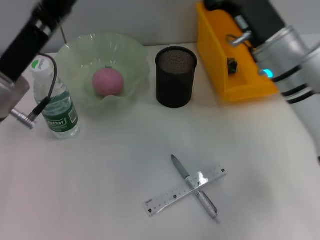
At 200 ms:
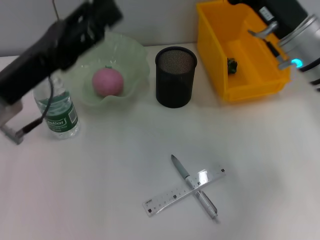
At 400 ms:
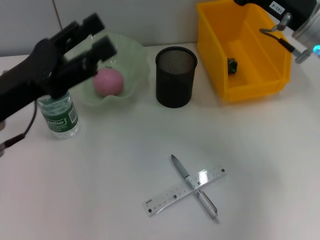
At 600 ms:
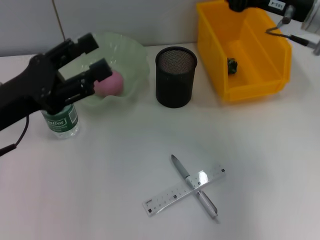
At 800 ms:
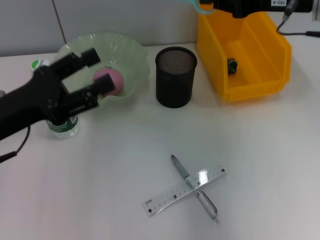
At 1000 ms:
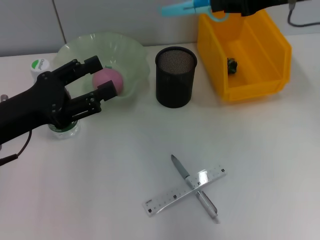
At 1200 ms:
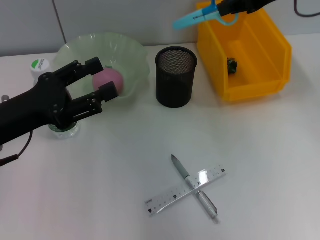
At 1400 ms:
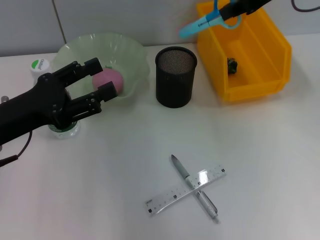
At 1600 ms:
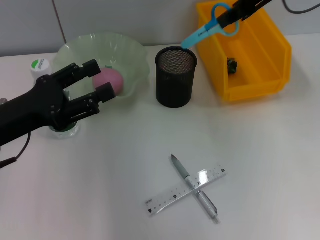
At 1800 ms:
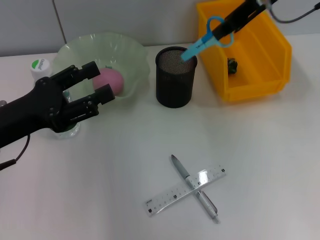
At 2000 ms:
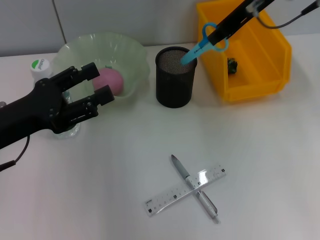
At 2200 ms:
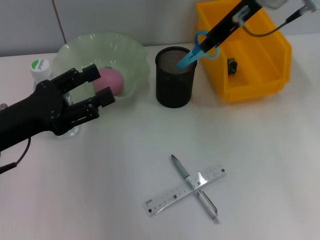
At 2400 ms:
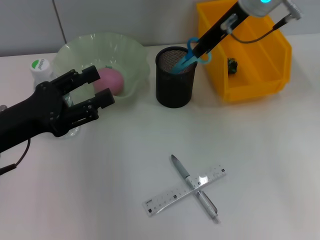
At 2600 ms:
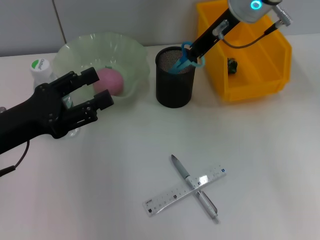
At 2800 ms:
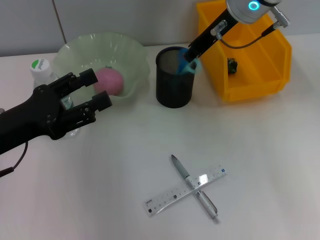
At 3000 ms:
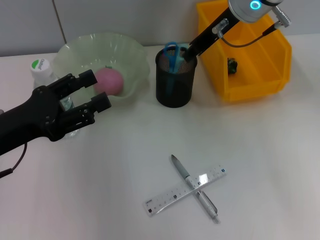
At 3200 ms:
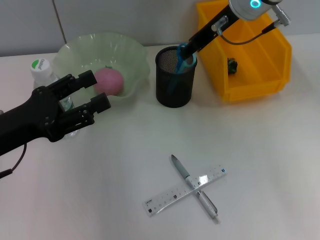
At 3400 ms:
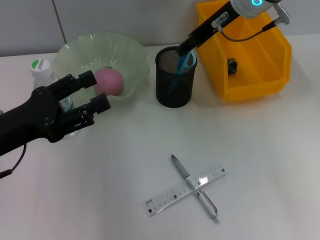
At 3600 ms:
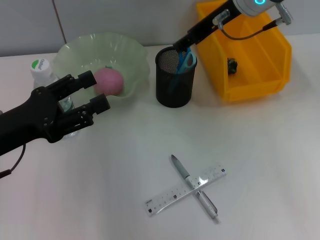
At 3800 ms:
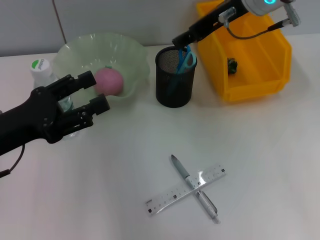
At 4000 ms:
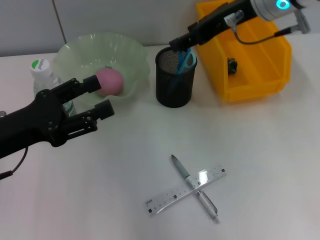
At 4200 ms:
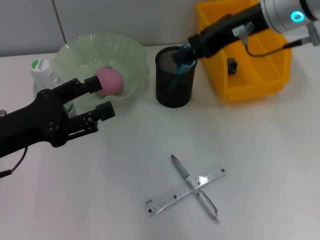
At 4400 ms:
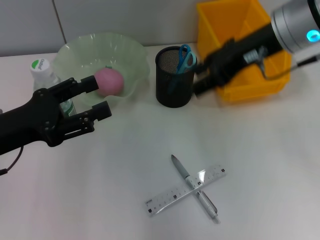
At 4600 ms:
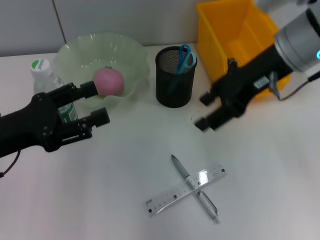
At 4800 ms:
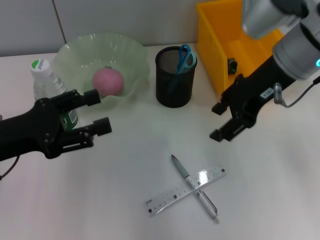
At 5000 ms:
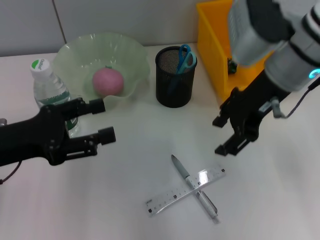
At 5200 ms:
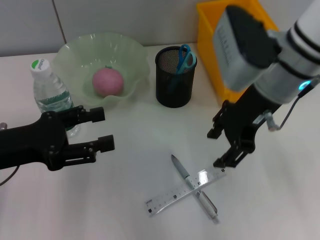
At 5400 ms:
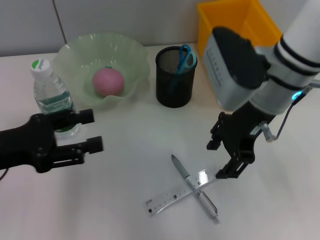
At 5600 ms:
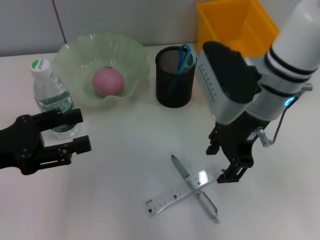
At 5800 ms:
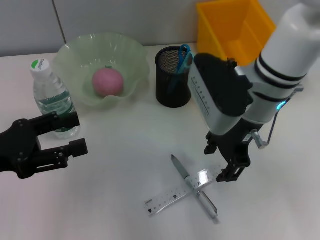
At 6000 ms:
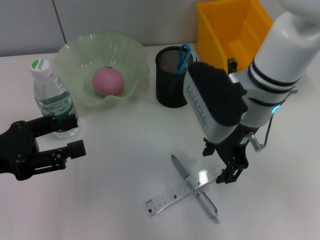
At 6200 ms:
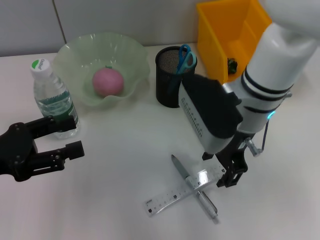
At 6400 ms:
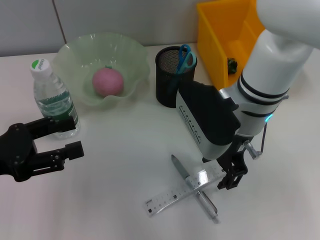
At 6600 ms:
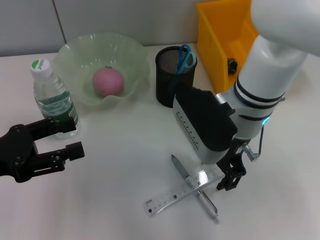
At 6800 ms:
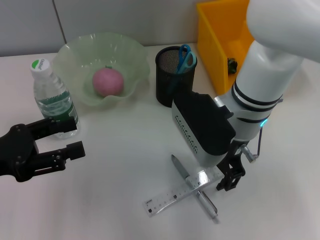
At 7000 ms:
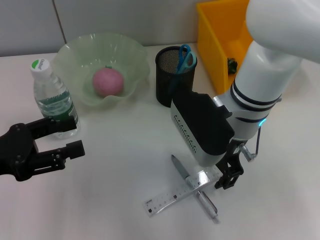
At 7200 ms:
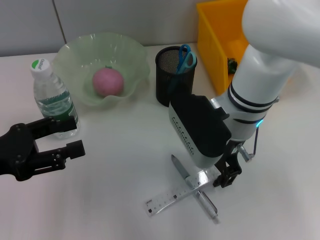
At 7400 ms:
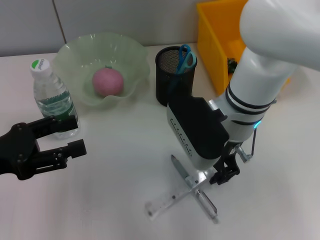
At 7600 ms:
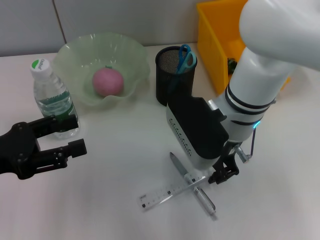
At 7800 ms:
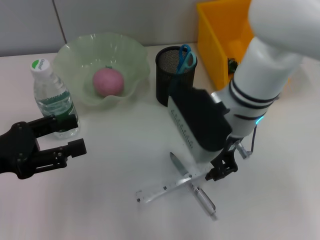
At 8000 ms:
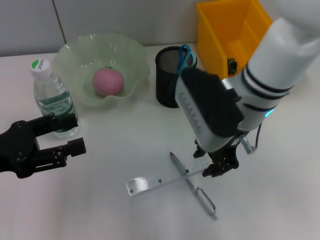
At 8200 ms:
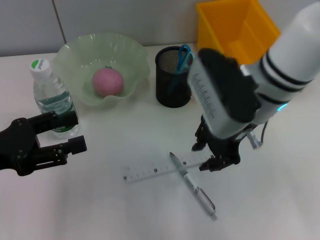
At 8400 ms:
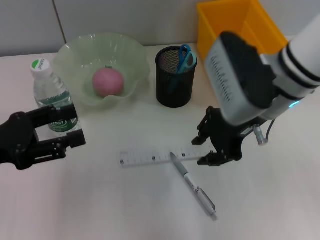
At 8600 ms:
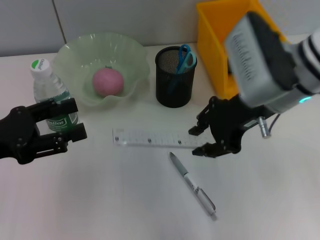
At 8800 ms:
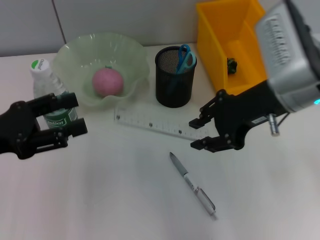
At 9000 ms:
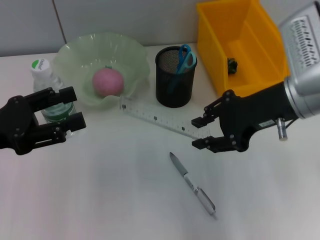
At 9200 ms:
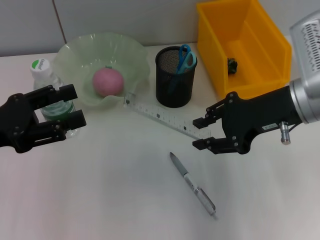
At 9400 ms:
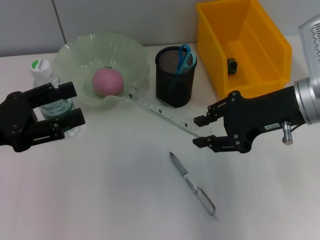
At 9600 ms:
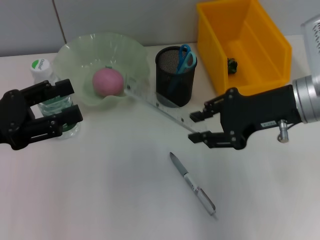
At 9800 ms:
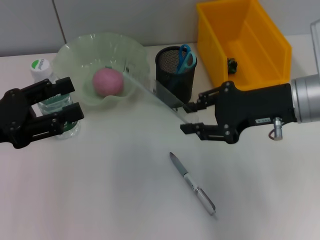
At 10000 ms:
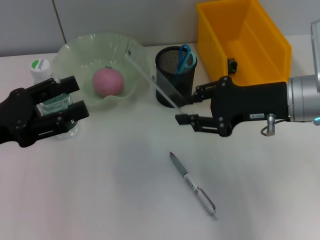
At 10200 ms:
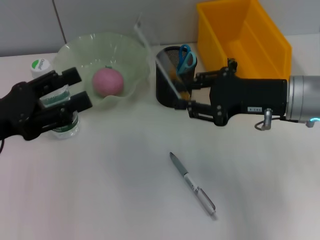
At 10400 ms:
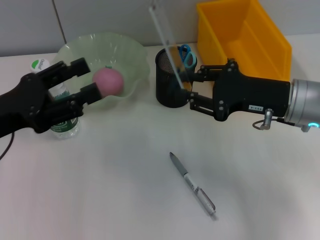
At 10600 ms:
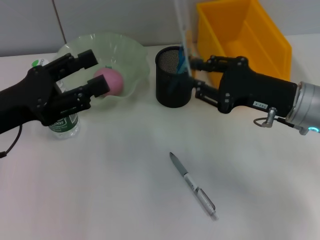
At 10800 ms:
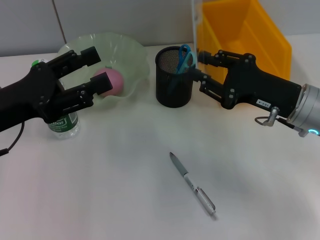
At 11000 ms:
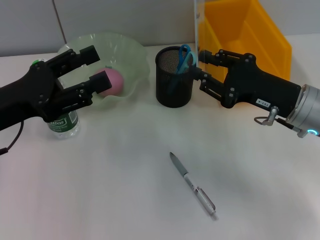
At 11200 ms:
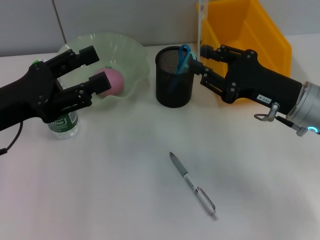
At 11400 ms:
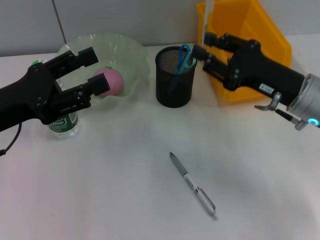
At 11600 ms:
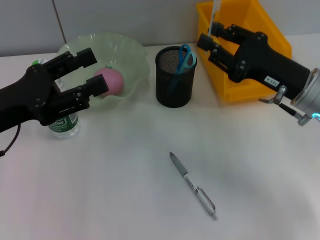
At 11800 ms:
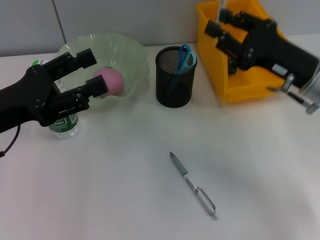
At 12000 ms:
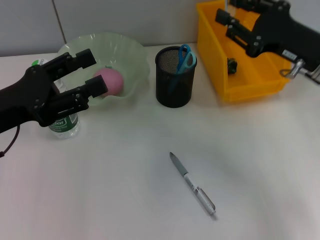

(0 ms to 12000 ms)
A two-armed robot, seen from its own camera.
Step, 0 ms - 3000 ms: Place the blue scissors into the pen holder with the right hand.
Step, 3400 ms - 7200 ms: Grab the ruler with the right hand.
0 ms - 1600 ms: The right gripper shifts roughly 15 cm upward. The left gripper moves about 5 cm.
1600 ms - 3000 ms: The right gripper shifts some 10 cm downward and to the left.
3000 ms - 4400 ms: The right gripper heads backward, covering about 10 cm, and opens up.
4400 ms - 6000 ms: The right gripper is displaced downward and to the left by roughly 10 cm.
6000 ms - 7600 ms: The grippers stay close to where they were, moving slightly.
7600 ms - 9000 ms: The right gripper travels to the right by approximately 10 cm.
9000 ms - 10400 ms: The right gripper heads downward, covering some 5 cm.

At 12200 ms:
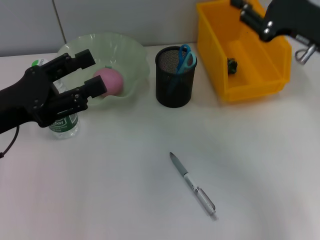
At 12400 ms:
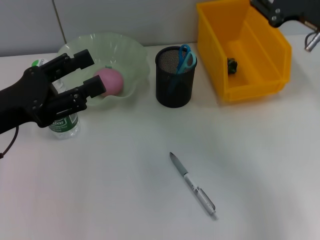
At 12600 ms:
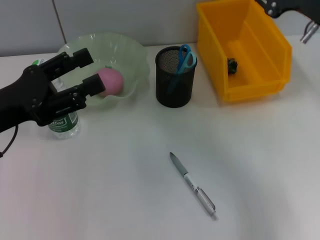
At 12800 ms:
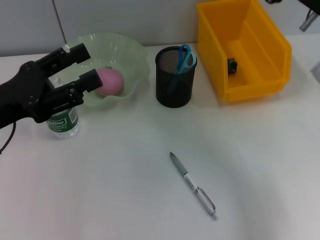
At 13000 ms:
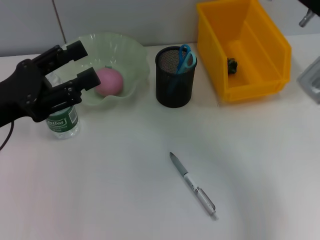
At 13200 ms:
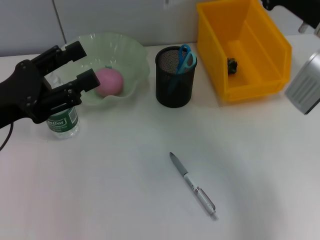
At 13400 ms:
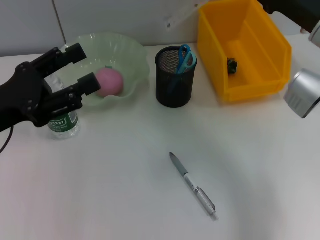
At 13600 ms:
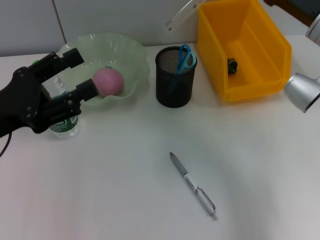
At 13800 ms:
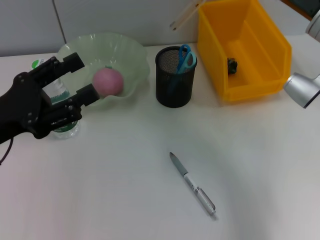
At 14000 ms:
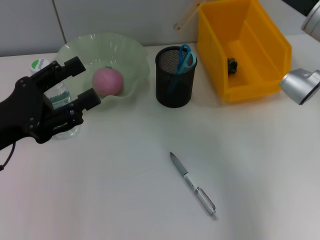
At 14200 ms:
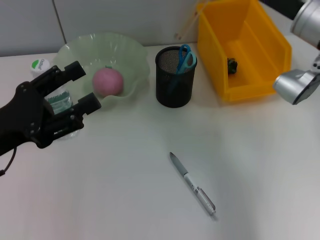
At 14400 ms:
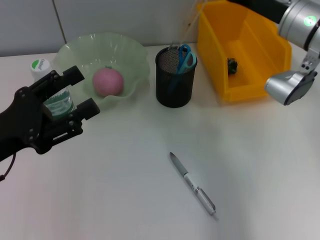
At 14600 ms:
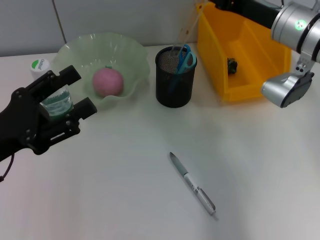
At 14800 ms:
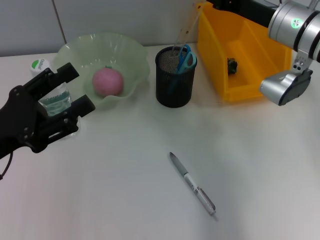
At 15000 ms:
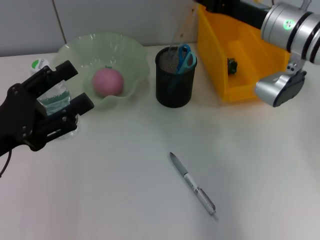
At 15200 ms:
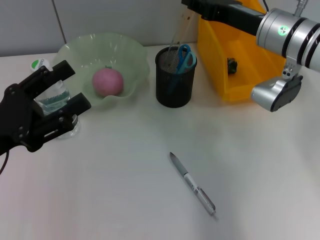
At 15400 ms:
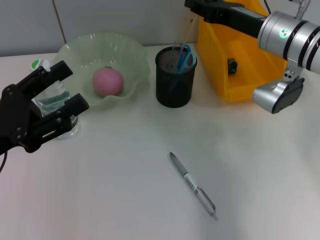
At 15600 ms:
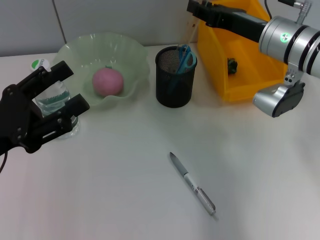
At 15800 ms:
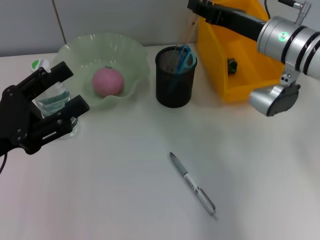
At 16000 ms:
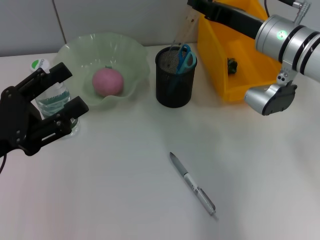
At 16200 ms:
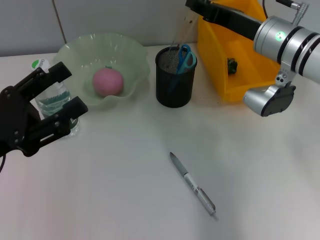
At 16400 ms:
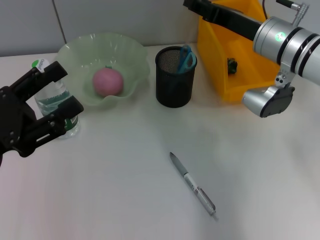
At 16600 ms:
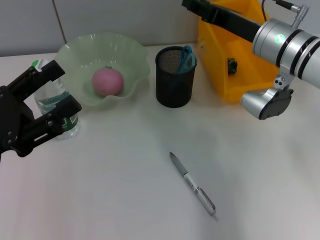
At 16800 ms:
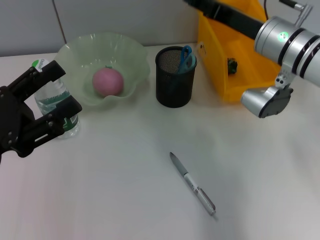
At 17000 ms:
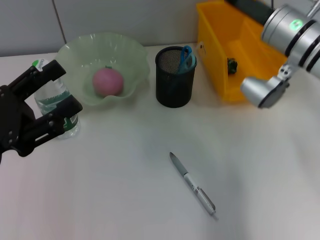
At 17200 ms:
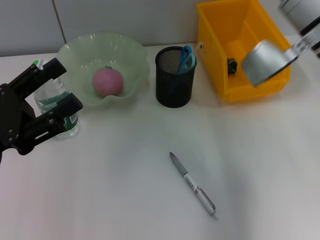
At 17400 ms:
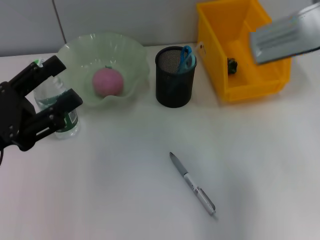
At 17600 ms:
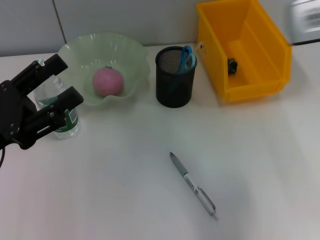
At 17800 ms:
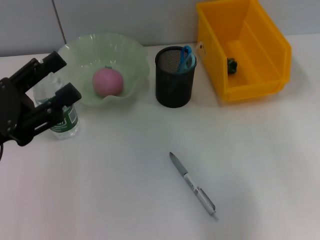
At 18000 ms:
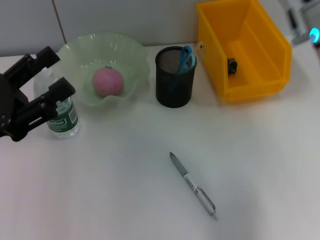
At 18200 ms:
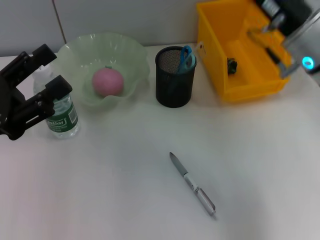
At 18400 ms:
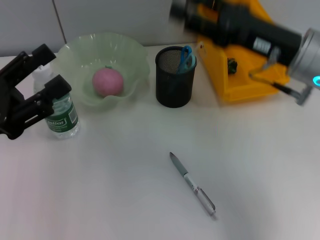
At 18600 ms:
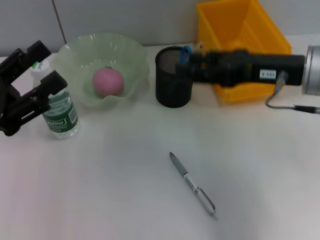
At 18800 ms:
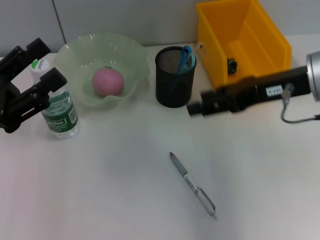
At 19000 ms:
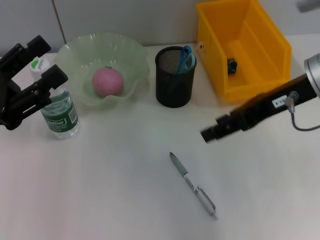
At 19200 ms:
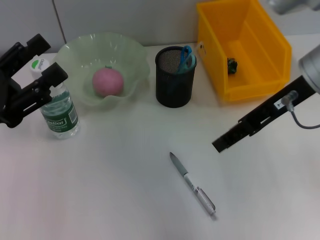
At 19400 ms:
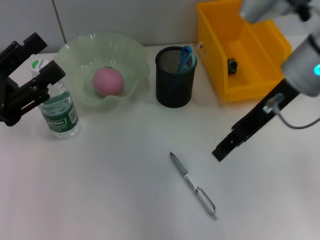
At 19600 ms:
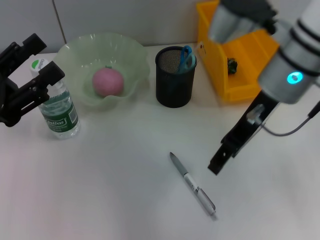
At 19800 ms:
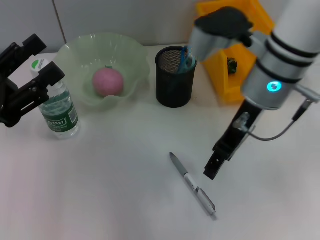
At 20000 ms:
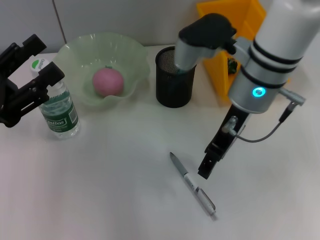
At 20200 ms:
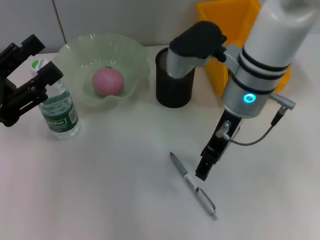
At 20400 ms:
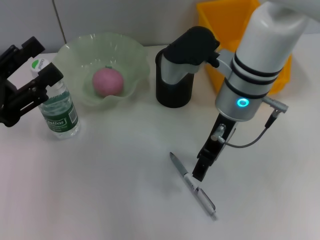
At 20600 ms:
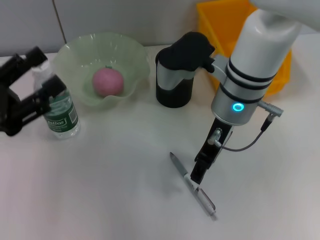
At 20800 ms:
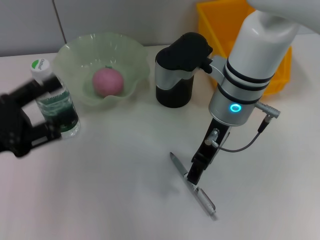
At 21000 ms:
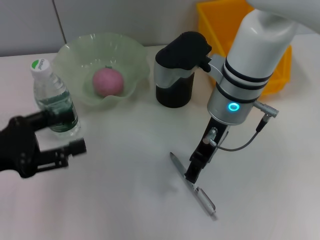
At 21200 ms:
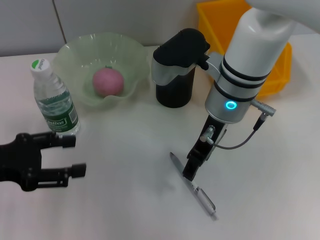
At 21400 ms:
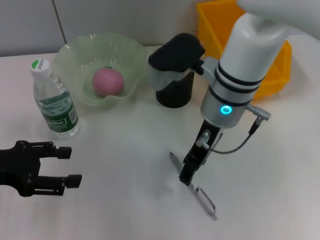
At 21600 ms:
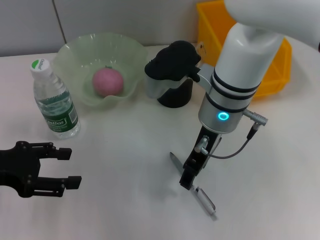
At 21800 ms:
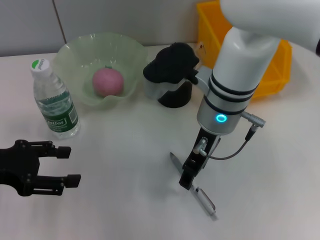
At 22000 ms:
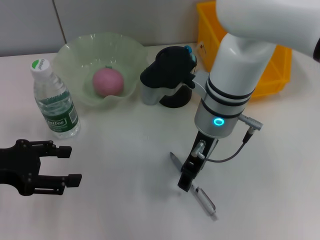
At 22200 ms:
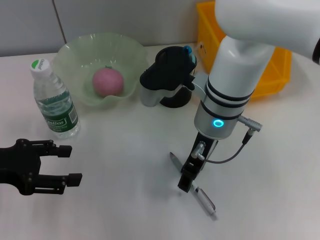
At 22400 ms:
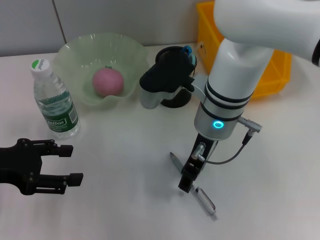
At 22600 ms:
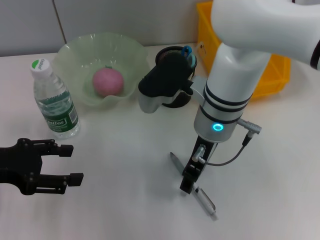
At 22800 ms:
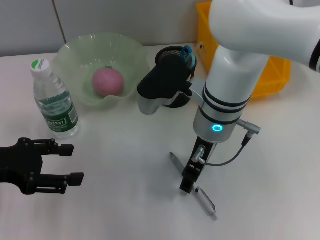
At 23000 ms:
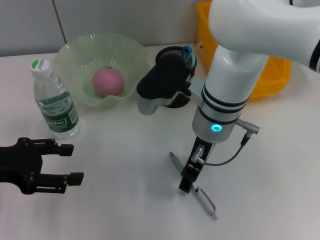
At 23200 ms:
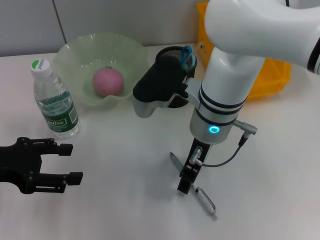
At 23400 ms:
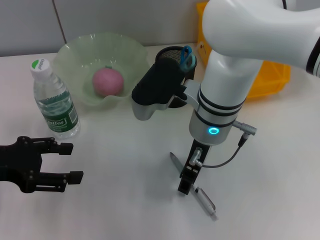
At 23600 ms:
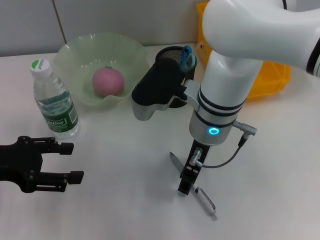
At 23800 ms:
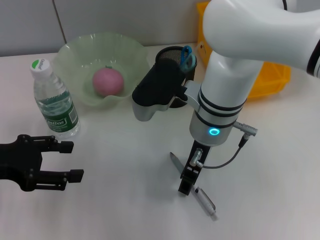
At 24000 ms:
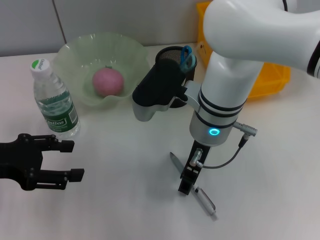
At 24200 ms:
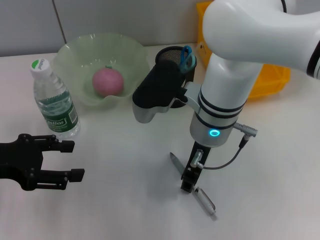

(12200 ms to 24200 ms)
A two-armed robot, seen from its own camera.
Step, 12200 ms - 16600 ms: Place the ruler into the pen holder with the right hand.
13800 ms - 15200 ms: The right gripper moves approximately 5 cm.
15200 ms - 16600 ms: The grippers stay close to where they were, moving slightly.
16600 ms - 18200 ms: The right gripper heads backward, covering about 5 cm.
18200 ms - 19800 ms: The right gripper moves to the left, about 5 cm.
19800 ms - 21200 ms: The right gripper moves about 5 cm.
21200 ms - 22600 ms: The grippers make only small movements.
22600 ms - 24200 ms: Both grippers stay put.
